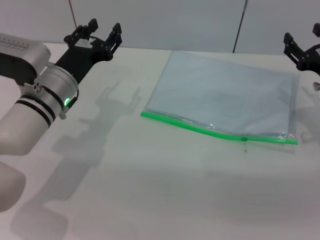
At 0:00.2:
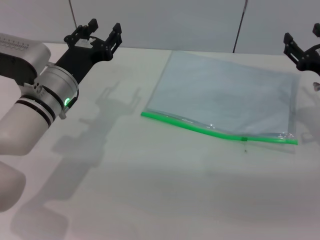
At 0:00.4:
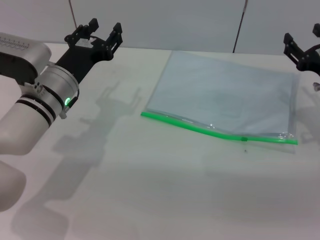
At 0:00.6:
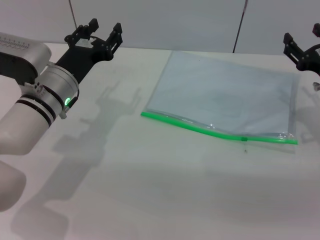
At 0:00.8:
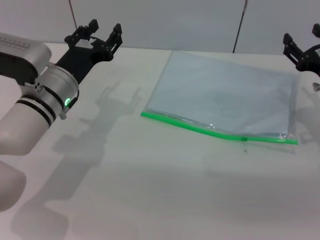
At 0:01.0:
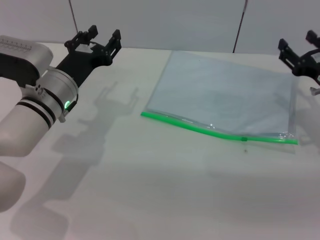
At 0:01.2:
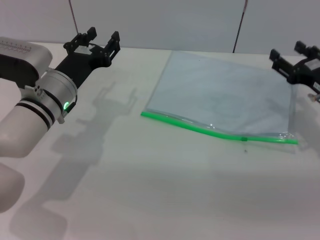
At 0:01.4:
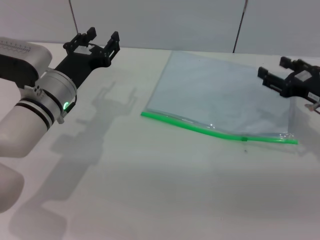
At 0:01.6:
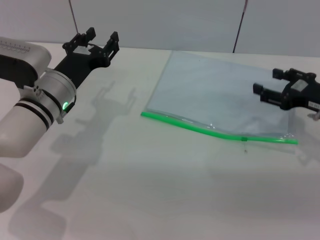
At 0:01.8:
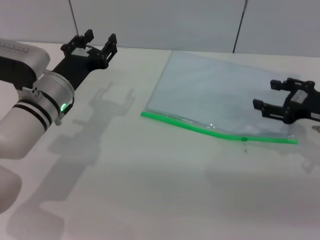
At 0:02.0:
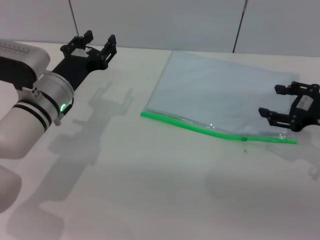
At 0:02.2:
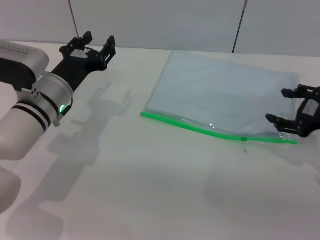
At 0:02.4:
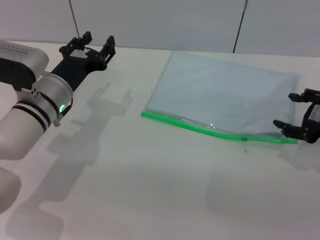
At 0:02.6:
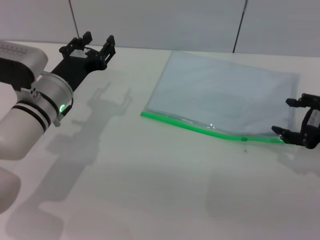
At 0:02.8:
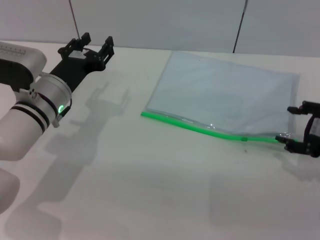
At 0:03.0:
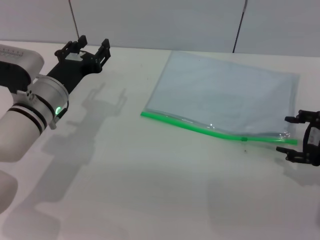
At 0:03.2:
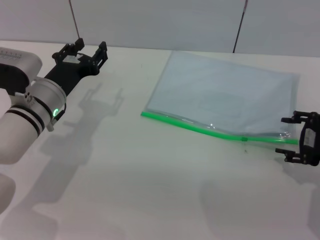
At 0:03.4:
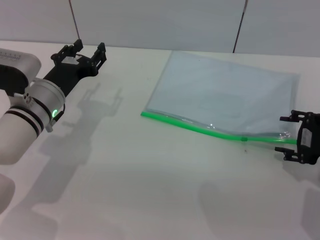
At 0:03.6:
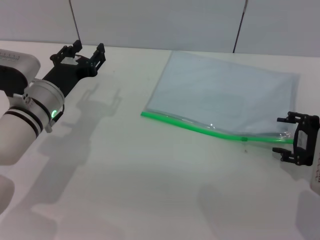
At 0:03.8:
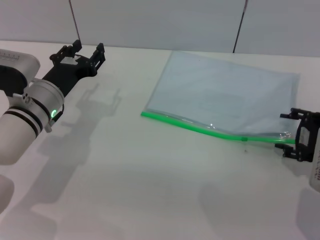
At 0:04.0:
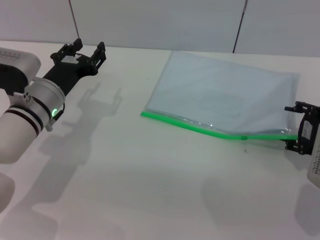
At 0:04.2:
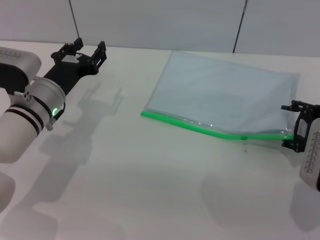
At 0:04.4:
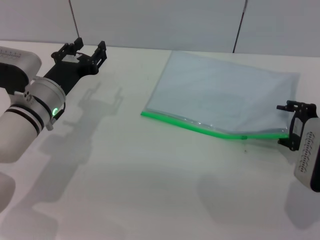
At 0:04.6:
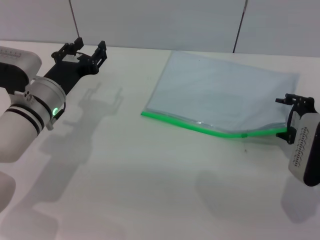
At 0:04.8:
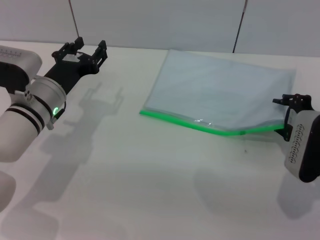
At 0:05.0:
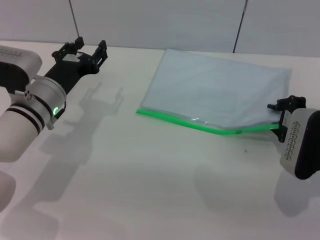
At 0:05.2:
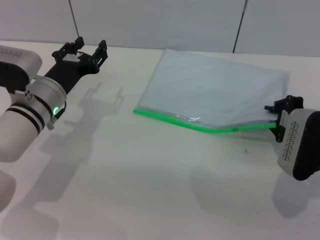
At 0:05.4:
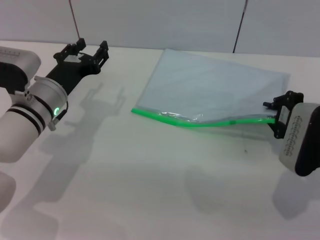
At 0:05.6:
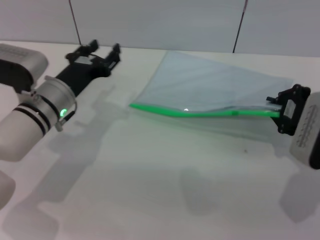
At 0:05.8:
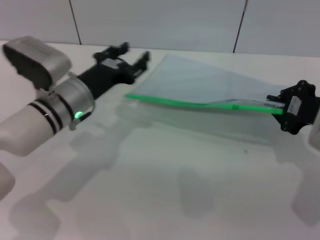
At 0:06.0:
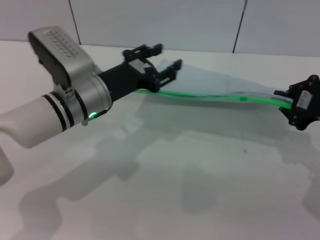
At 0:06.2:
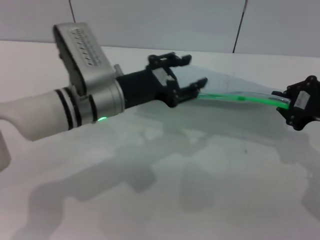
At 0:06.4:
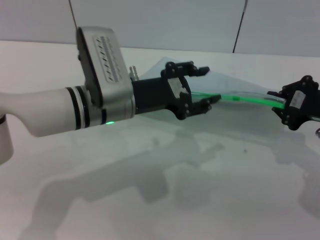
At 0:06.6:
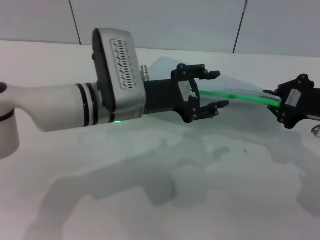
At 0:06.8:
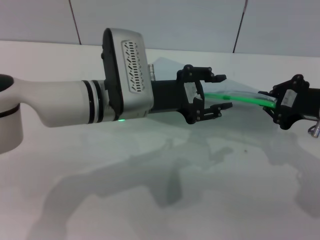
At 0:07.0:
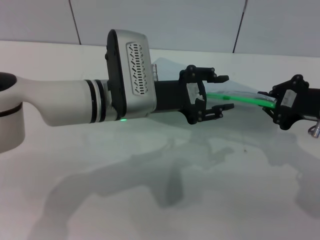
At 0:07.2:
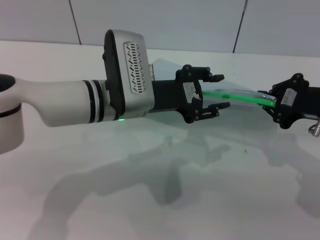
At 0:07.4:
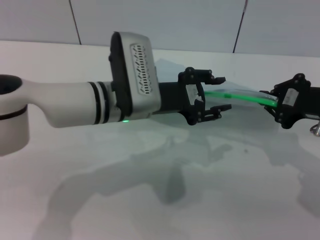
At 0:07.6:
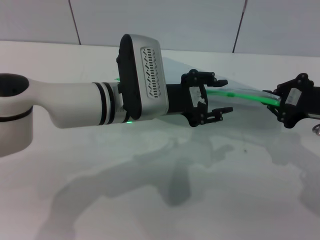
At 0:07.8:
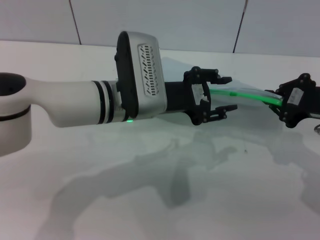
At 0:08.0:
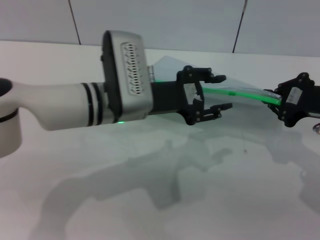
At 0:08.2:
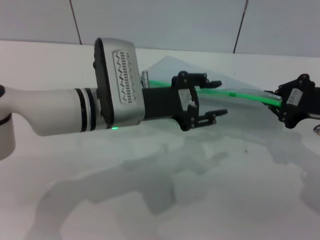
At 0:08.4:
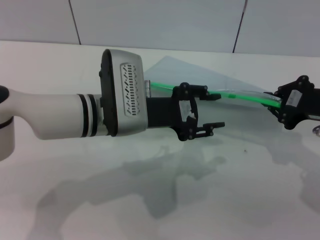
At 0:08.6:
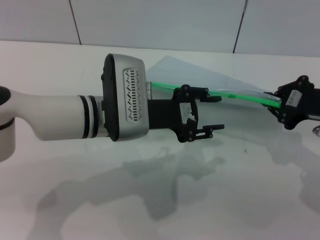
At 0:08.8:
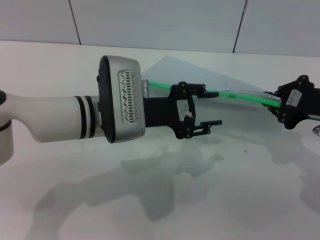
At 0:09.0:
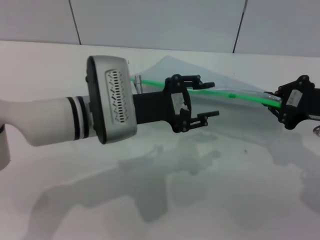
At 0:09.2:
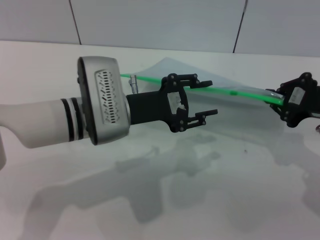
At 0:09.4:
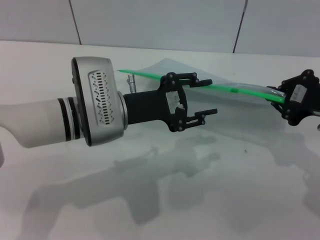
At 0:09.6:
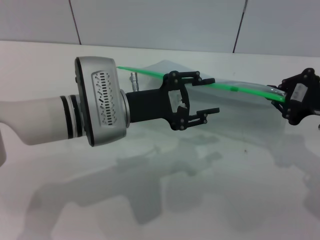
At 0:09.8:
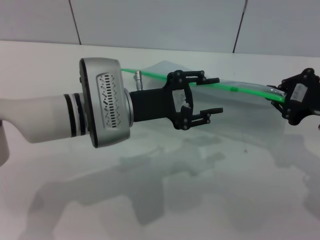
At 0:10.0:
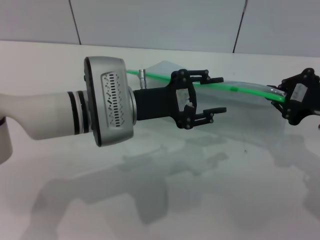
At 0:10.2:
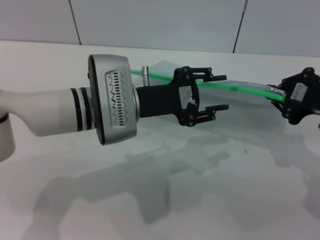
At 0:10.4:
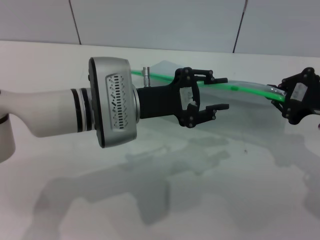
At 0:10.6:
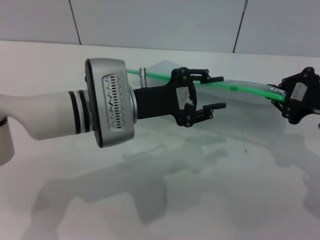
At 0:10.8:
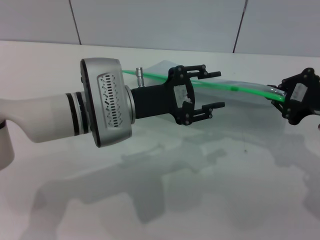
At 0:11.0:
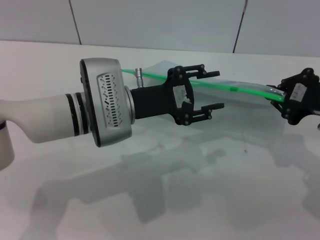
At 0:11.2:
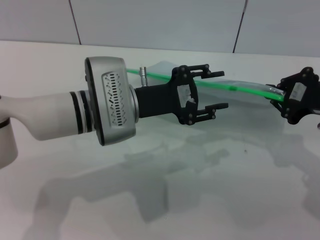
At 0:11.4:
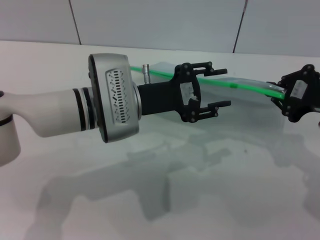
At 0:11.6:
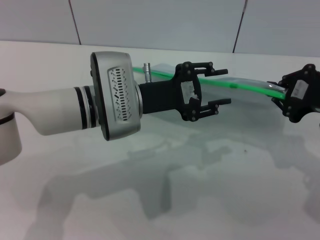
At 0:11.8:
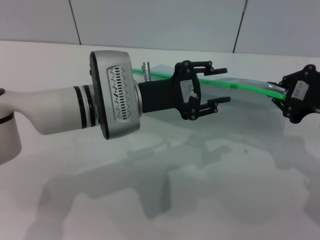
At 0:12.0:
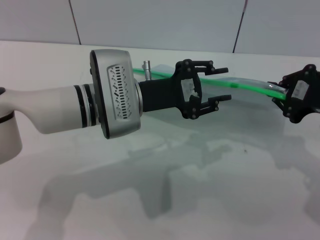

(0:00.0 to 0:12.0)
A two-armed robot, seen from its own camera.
Step, 0:00.0 - 0:05.6: Pick up the transparent plastic bag with the right gripper.
0:01.6 - 0:03.0: The right gripper is displaced backward by some 5 cm.
0:03.0 - 0:04.4: The grippers move only a little.
0:04.4 - 0:06.0: The left gripper travels to the right by roughly 5 cm; the right gripper goes roughly 5 cm upward, and closes up.
0:06.0 - 0:07.6: The left gripper is displaced to the right by approximately 5 cm.
0:07.6 - 0:10.4: The grippers make only small movements.
0:10.4 - 0:12.0: The two grippers keep their place.

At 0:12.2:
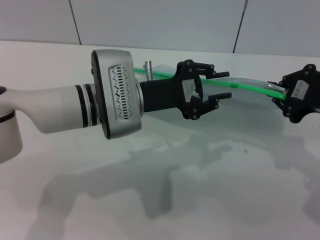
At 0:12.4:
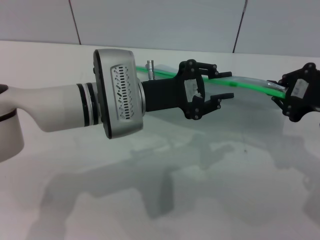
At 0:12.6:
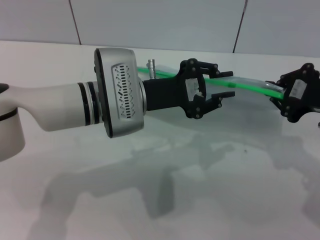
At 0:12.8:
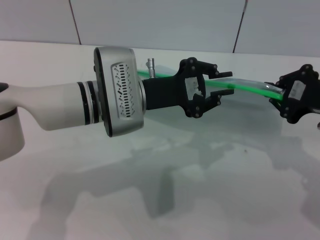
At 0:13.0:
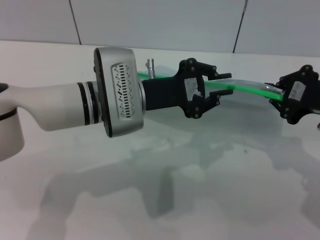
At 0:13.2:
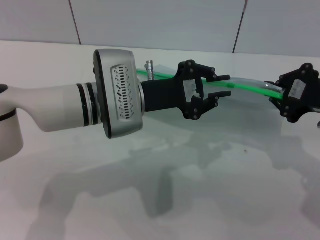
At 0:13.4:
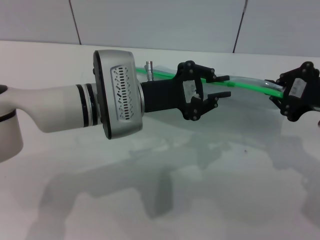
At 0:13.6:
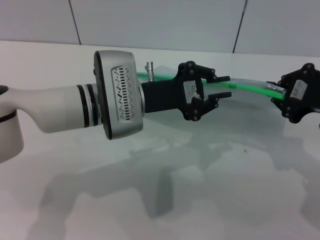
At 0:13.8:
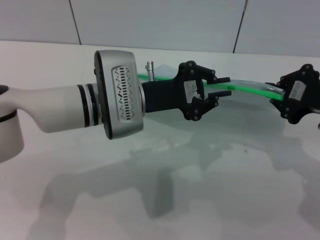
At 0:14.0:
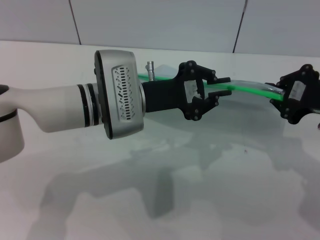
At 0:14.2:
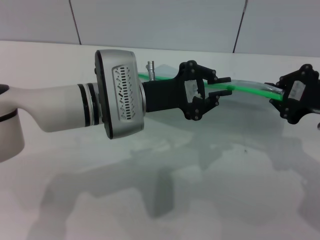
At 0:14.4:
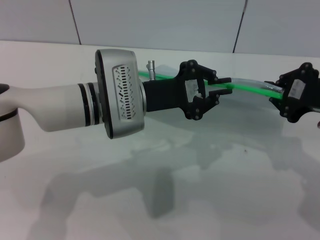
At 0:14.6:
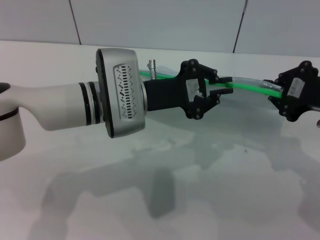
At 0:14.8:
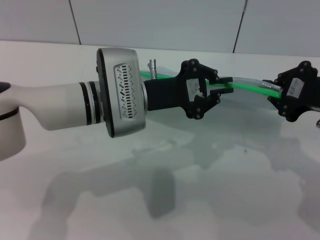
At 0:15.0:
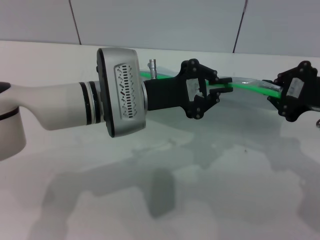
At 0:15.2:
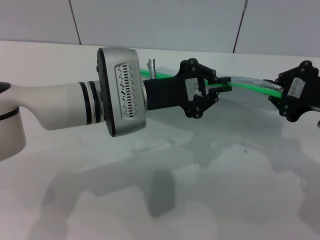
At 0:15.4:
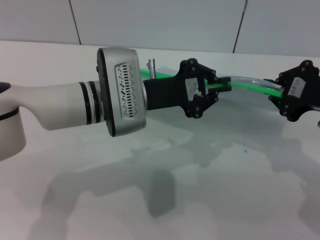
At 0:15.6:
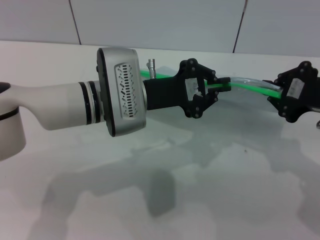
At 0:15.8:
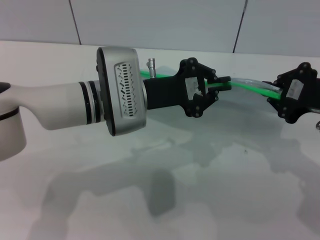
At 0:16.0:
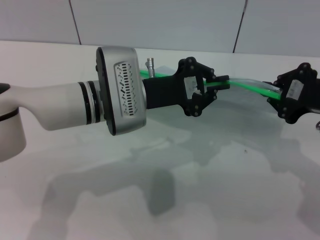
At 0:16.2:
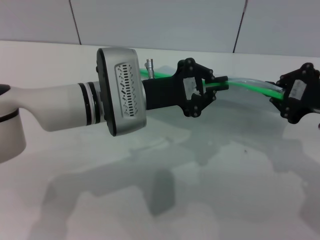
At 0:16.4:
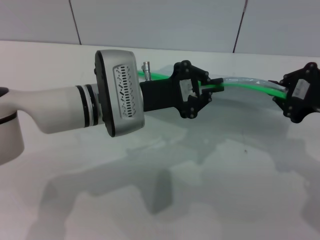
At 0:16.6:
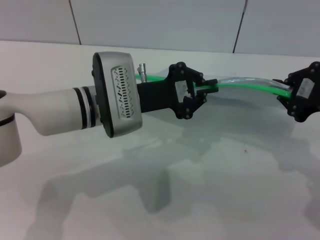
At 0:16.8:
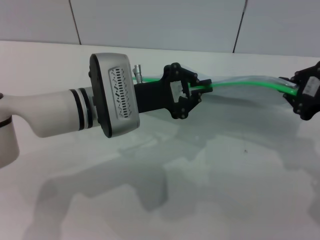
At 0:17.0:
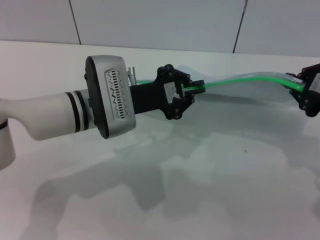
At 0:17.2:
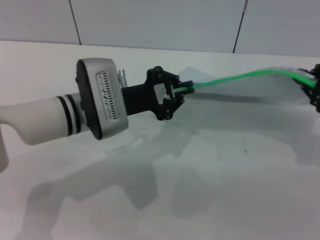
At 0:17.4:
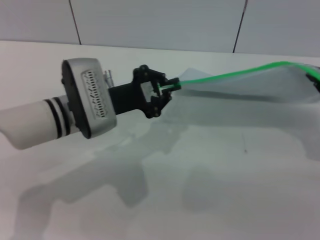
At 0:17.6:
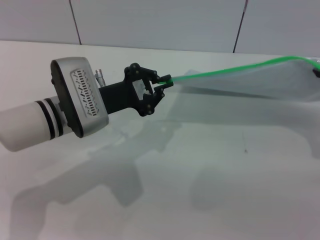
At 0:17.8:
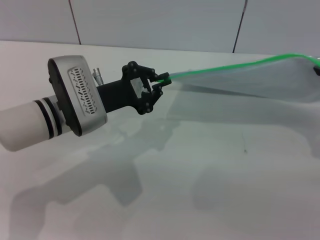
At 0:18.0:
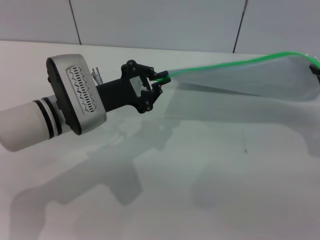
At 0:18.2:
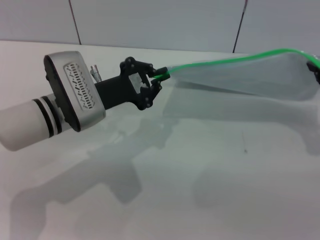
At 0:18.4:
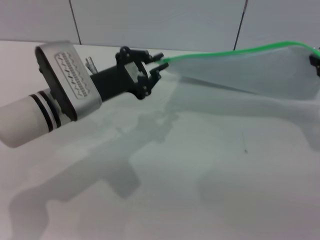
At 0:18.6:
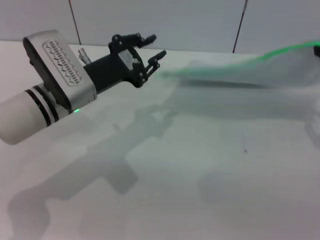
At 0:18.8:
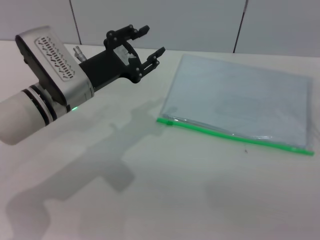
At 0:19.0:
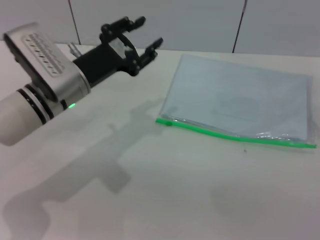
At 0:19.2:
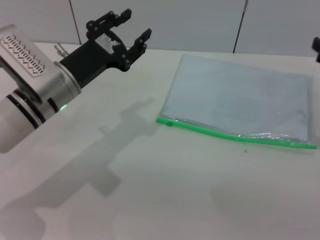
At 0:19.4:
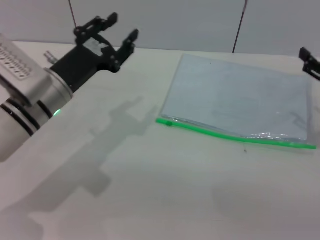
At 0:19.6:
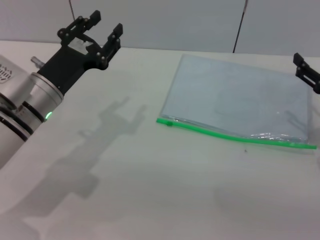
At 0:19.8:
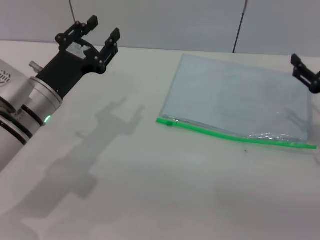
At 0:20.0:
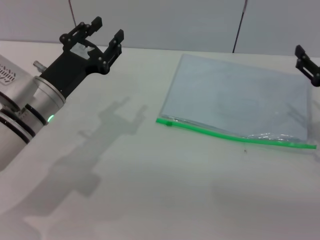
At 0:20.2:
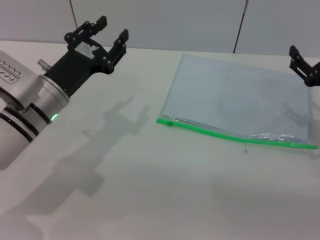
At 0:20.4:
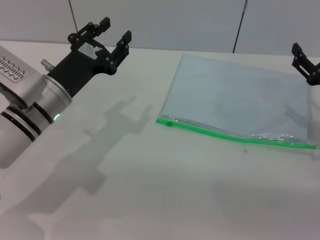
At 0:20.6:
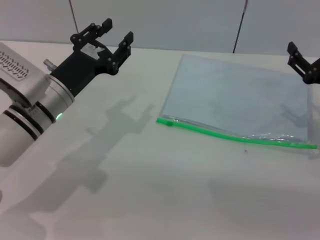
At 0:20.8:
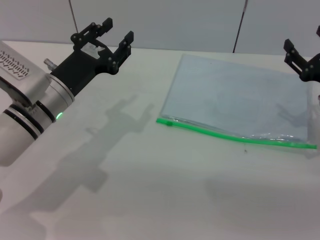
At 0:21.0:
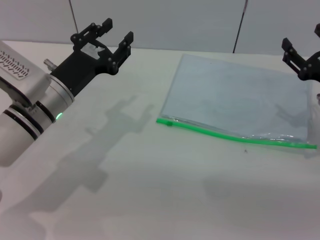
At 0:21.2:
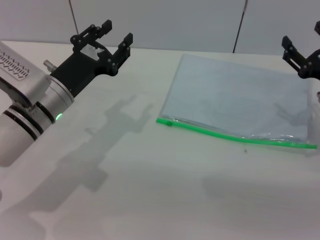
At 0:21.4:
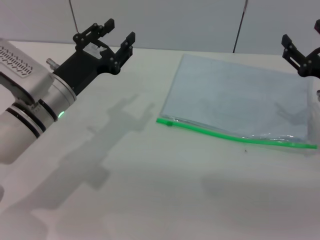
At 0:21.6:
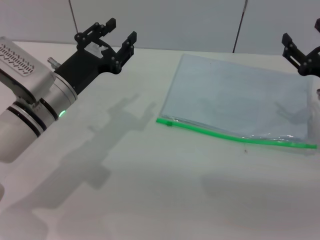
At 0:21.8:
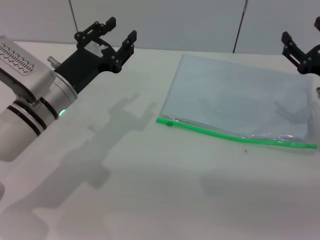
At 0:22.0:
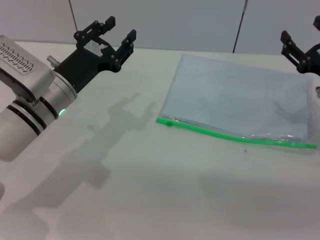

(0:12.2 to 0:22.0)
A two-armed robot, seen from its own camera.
Step, 0:12.2 - 0:18.4: Pulling up the zipper on the transparent plastic bag with the left gripper to close it.
Step, 0:18.6 - 0:19.2: Place the transparent plastic bag.
0:12.2 - 0:13.6: The left gripper closes up.
0:13.6 - 0:16.4: The two grippers keep their place.
0:16.4 - 0:17.8: The left gripper moves to the left, some 5 cm; the right gripper shifts roughly 5 cm to the right.
0:17.8 - 0:19.2: The left gripper opens; the right gripper opens up.
0:19.2 - 0:20.6: The right gripper is displaced downward by roughly 5 cm.
0:20.6 - 0:22.0: The grippers stay close to where they were, moving slightly.
